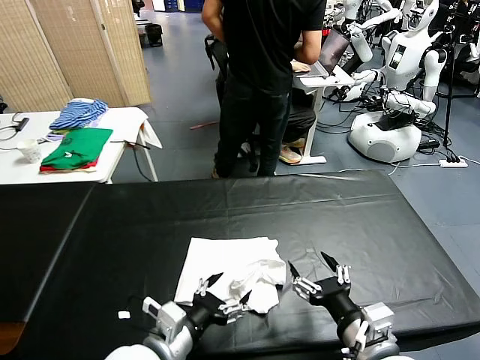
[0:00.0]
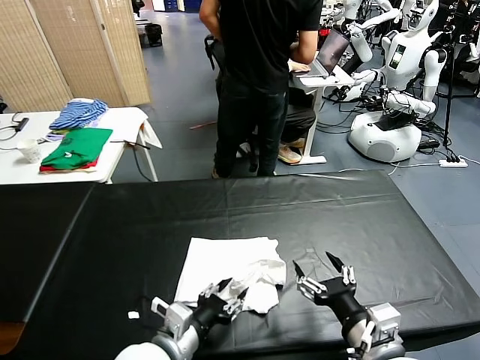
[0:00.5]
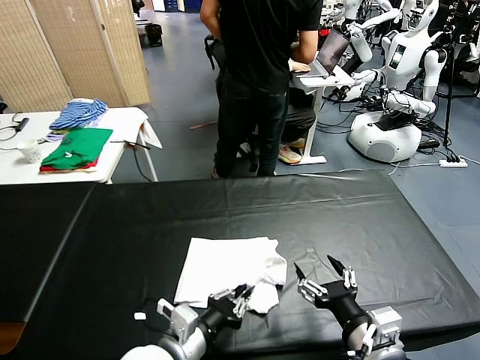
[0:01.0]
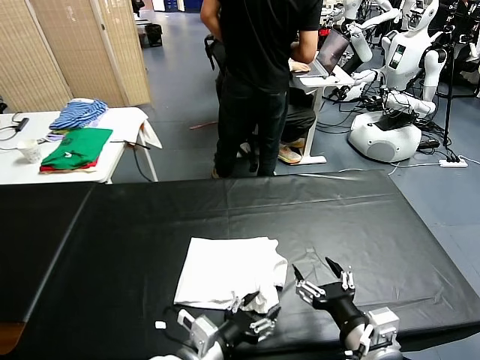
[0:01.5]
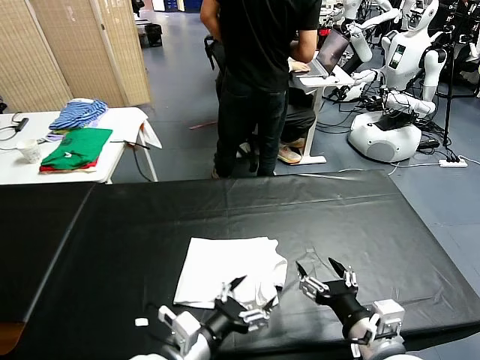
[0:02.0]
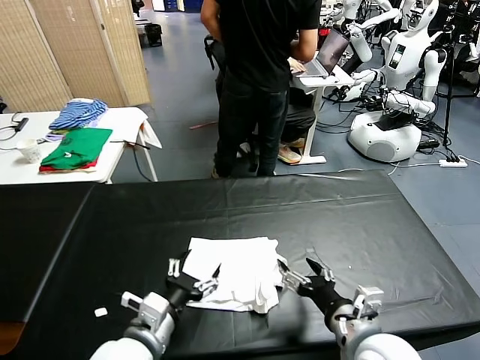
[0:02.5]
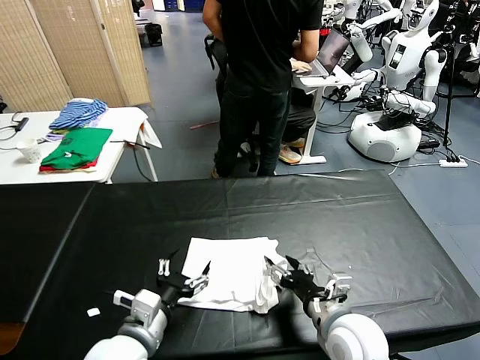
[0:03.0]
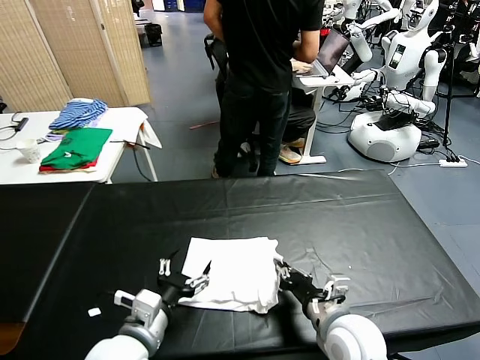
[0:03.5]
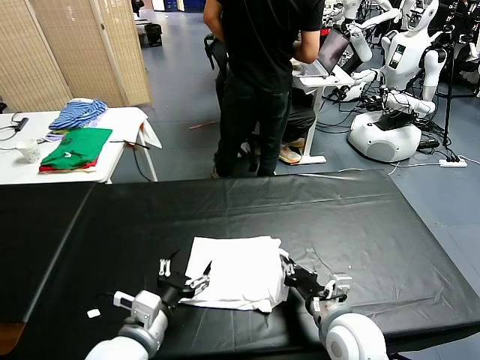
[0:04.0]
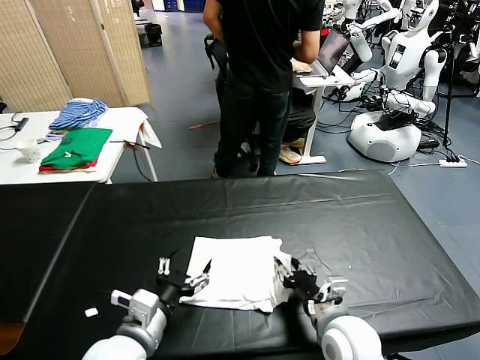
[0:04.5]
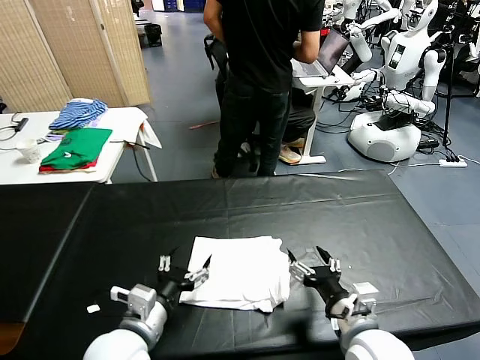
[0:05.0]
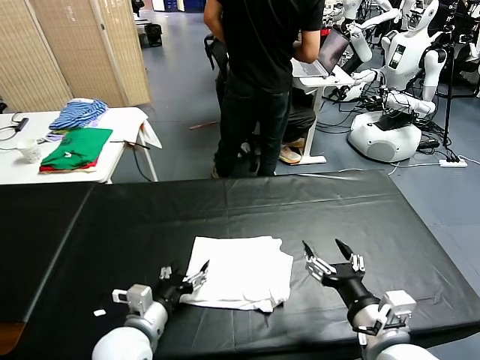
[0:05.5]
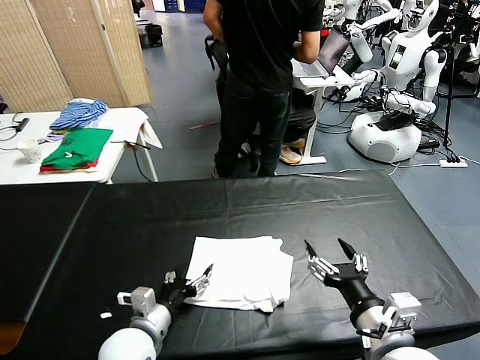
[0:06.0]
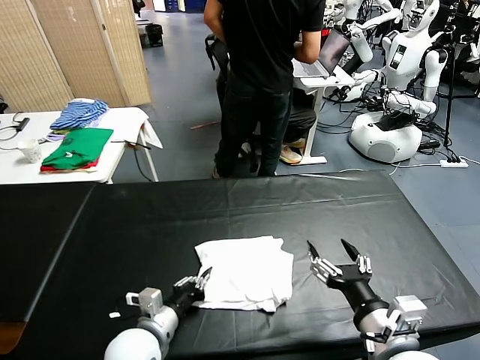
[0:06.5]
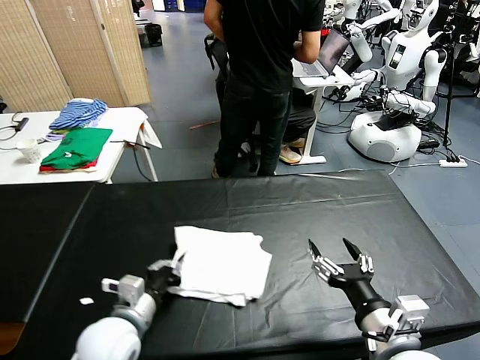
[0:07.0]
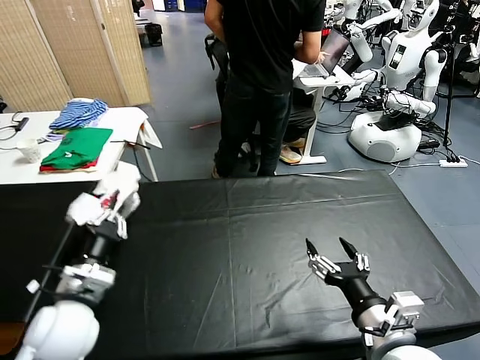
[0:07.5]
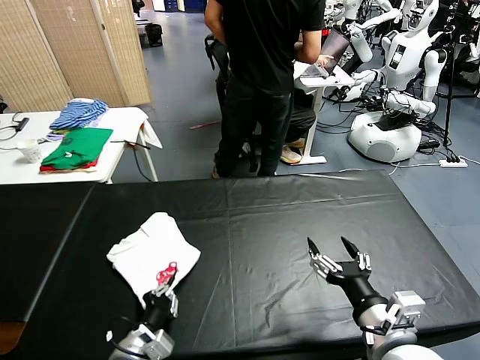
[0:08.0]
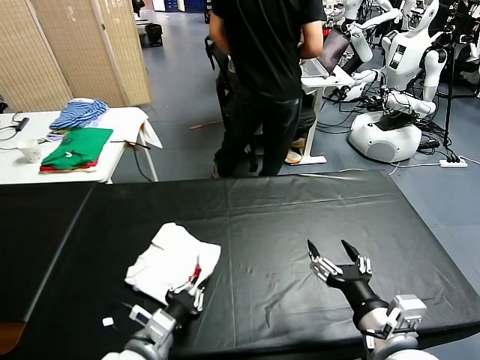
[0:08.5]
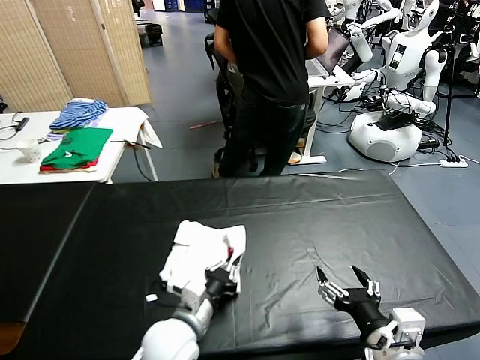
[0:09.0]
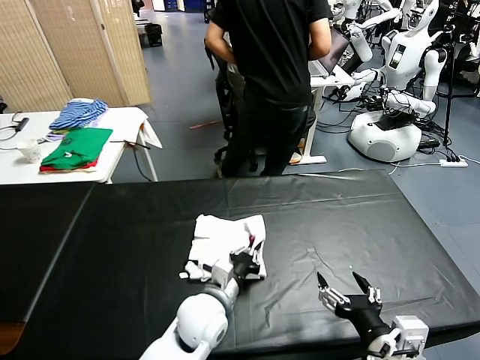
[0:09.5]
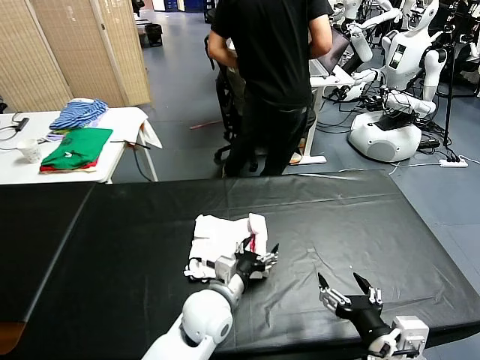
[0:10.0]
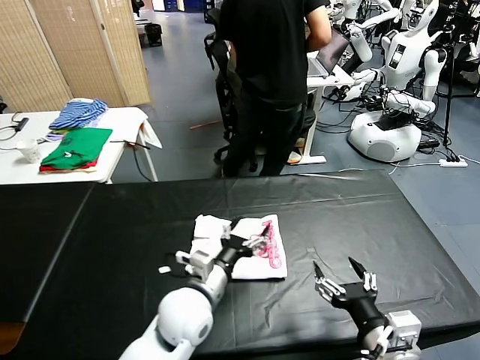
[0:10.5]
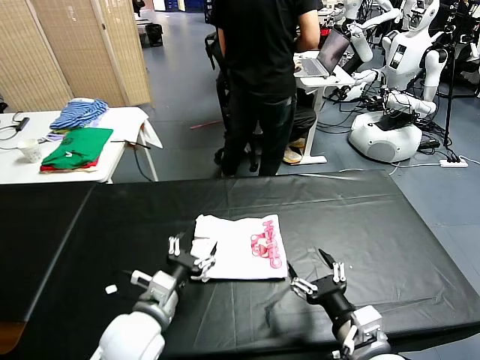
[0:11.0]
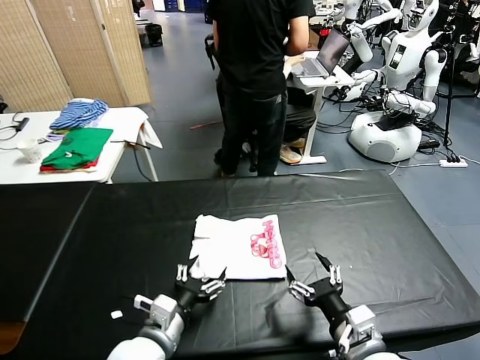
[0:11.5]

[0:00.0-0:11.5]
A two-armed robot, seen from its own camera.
Task of the whole recording: fold and organize the clothes.
Step, 0:00.0 to 0:10.0: Flip the folded clothes over with left gripper.
0:00.0 to 0:02.0: The left gripper closes, then reopens.
0:02.0 to 0:04.0: The left gripper heads to the left, covering approximately 5 cm; the right gripper shifts roughly 10 cm downward and forward, and closes its fingers.
0:04.0 to 0:06.0: The right gripper travels upward and backward by approximately 10 cm, and opens up; the left gripper moves downward, about 10 cm.
0:06.0 to 0:07.5: The left gripper shifts about 15 cm upward and to the left, and closes up.
0:07.5 to 0:09.5: The left gripper is displaced to the right and downward by approximately 25 cm.
0:09.5 to 0:11.5: The left gripper is displaced to the left and backward by some 15 cm, and opens its fingers; the right gripper travels downward by about 5 cm.

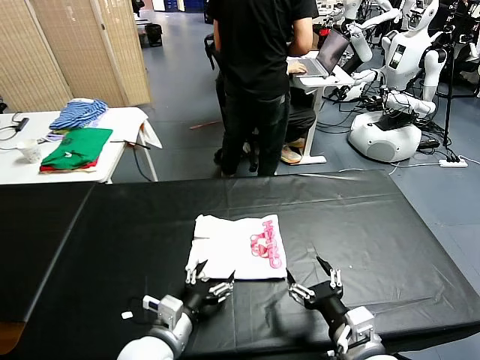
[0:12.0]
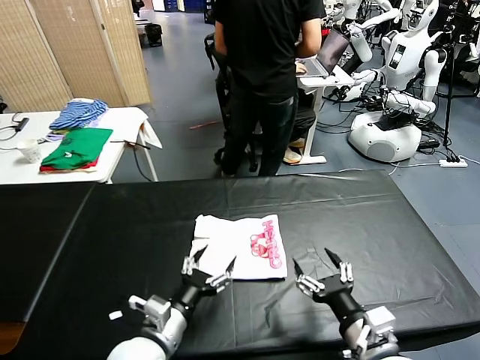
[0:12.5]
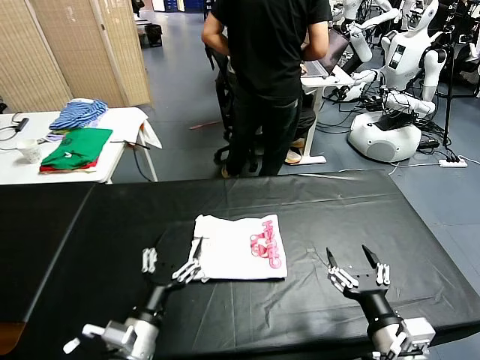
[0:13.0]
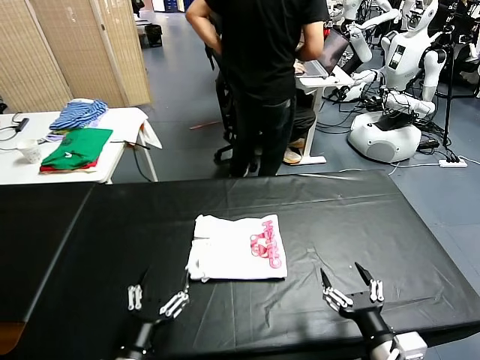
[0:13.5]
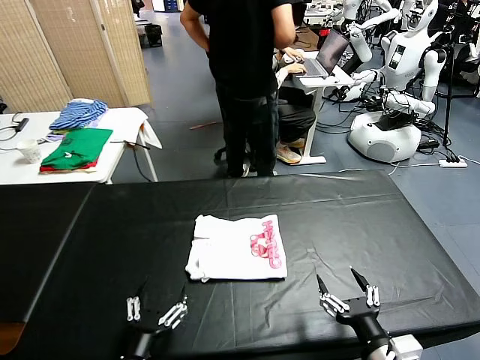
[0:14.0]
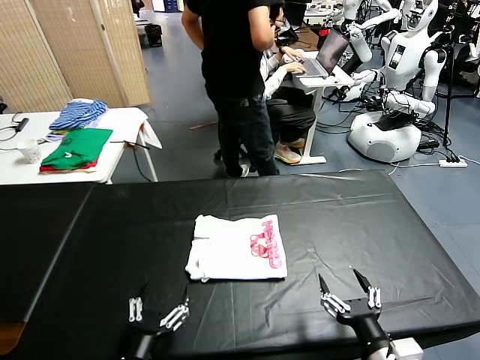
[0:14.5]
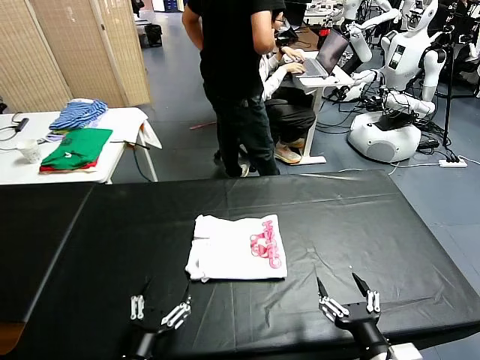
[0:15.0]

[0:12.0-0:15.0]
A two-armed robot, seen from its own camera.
Task of the whole recording: fold and organize the clothes.
0:12.0 to 0:13.5: The left gripper travels backward by approximately 10 cm; the right gripper changes place by about 5 cm.
0:13.5 to 0:15.0: There are only small adjustments of the grippers.

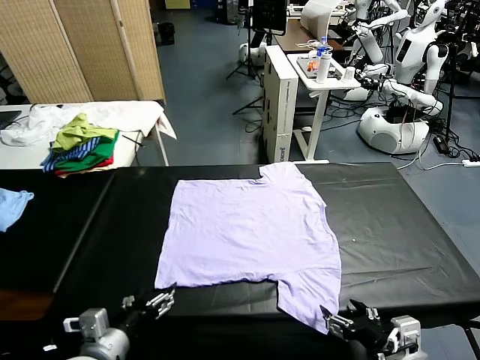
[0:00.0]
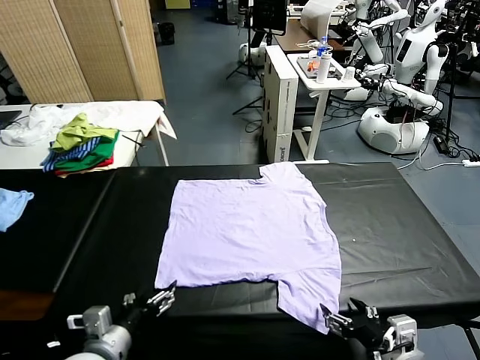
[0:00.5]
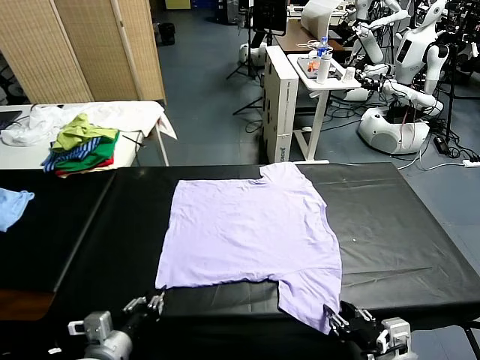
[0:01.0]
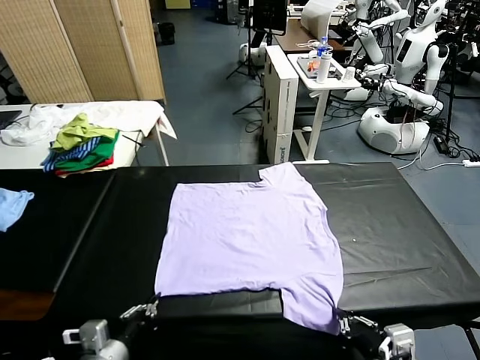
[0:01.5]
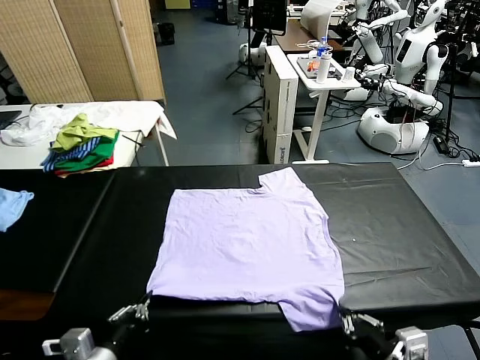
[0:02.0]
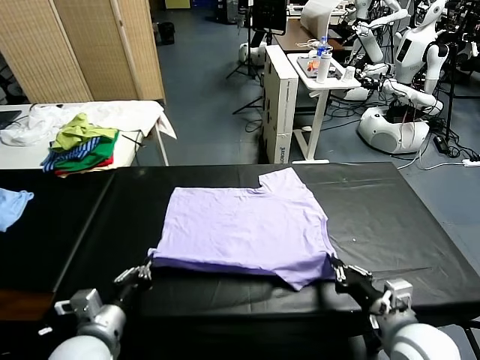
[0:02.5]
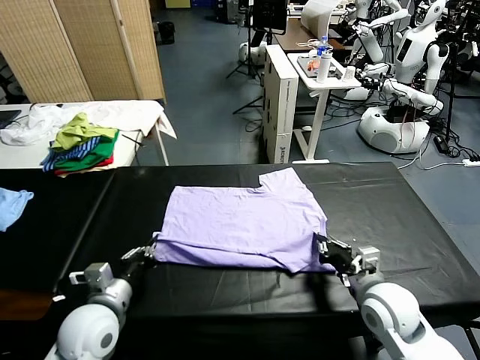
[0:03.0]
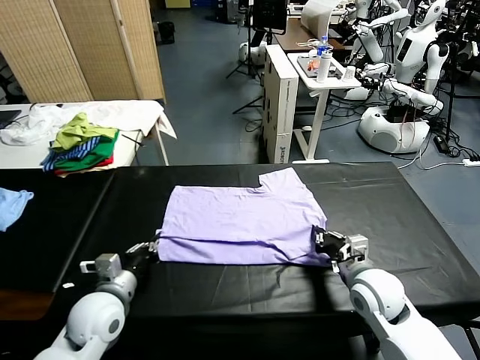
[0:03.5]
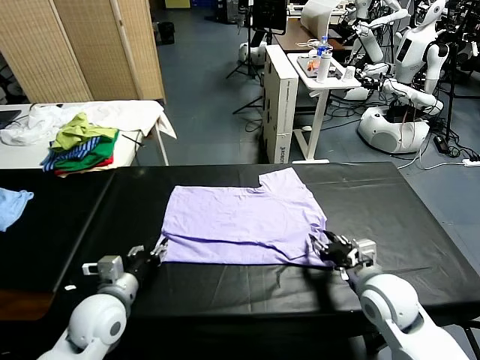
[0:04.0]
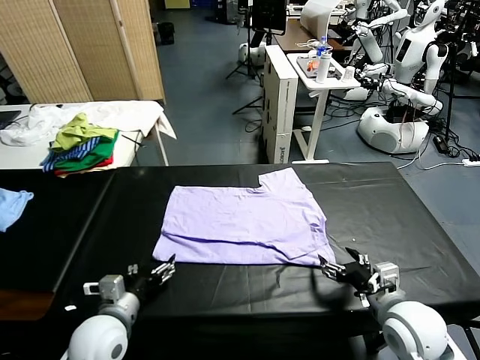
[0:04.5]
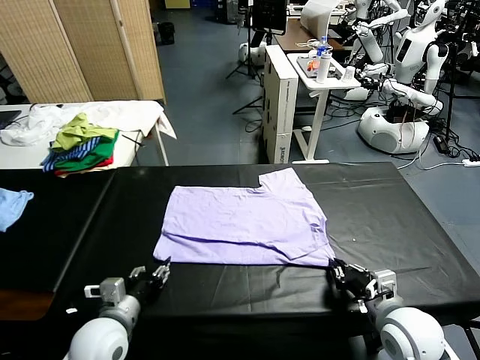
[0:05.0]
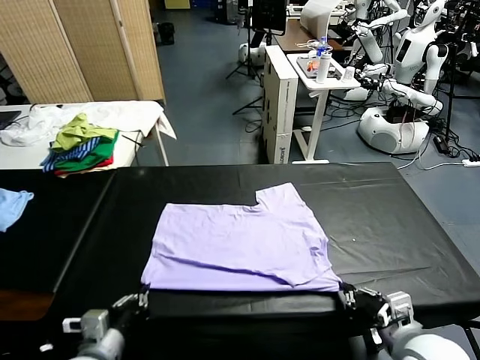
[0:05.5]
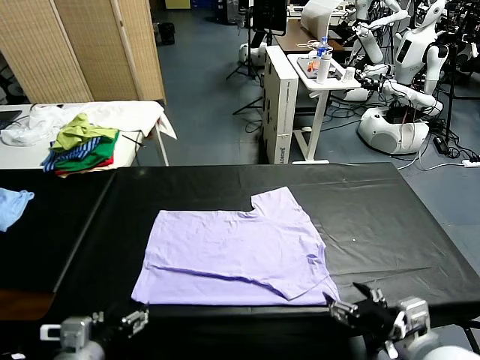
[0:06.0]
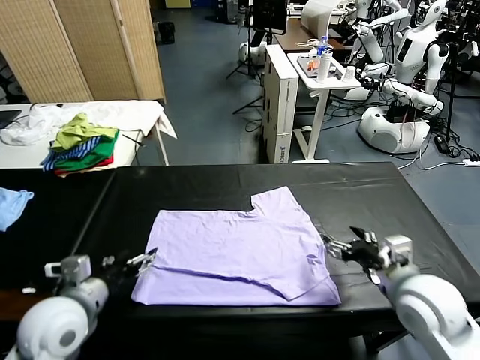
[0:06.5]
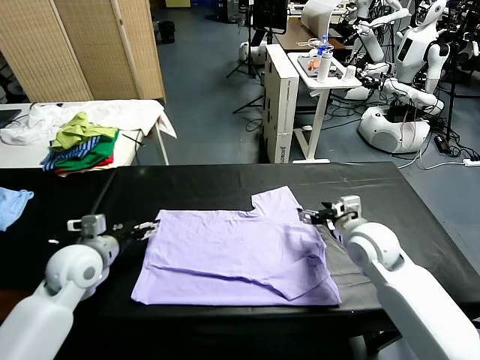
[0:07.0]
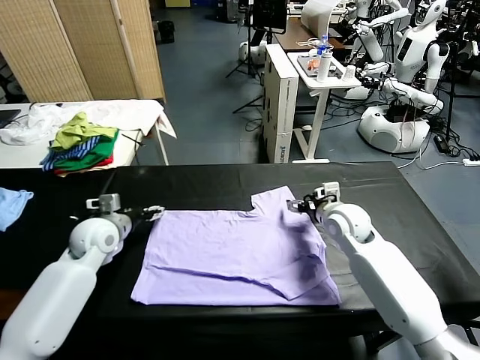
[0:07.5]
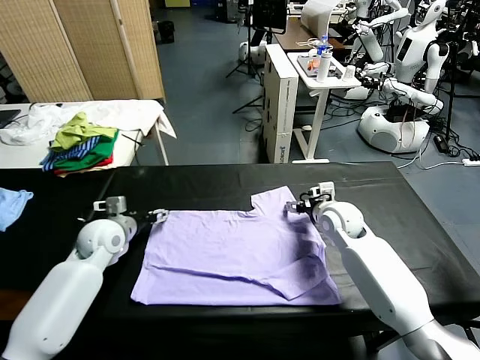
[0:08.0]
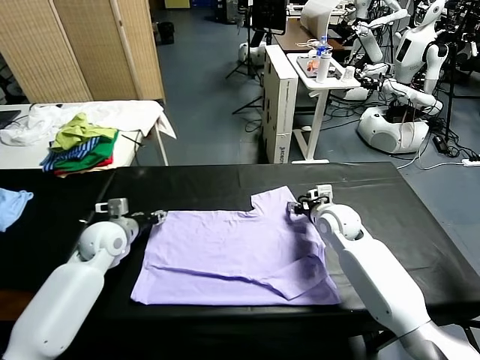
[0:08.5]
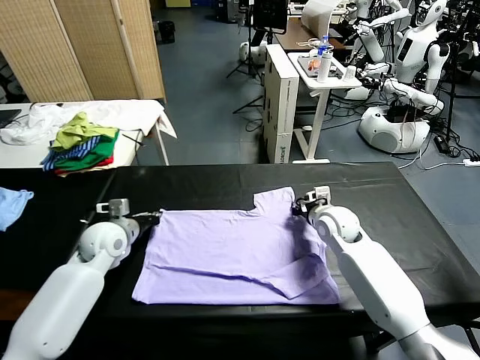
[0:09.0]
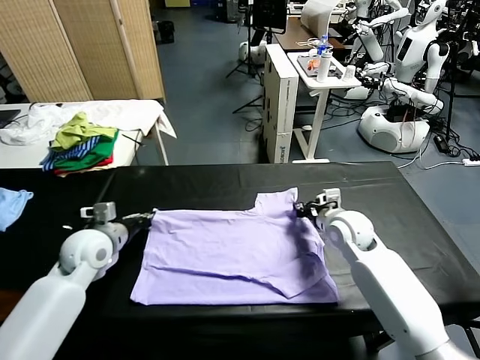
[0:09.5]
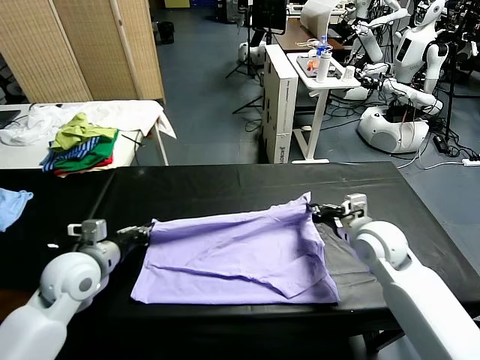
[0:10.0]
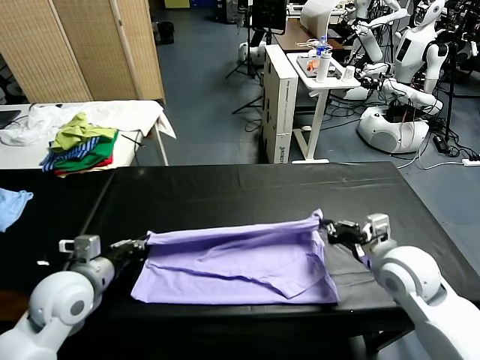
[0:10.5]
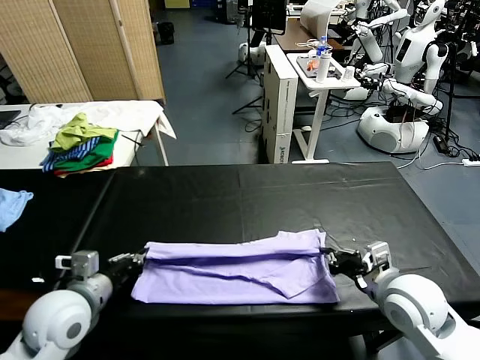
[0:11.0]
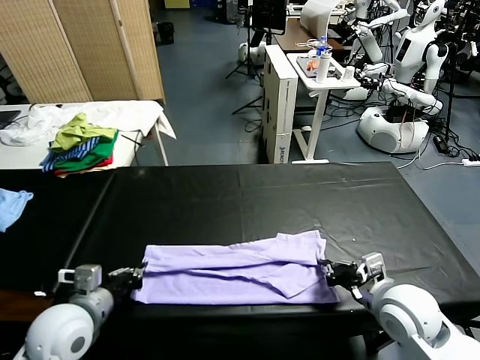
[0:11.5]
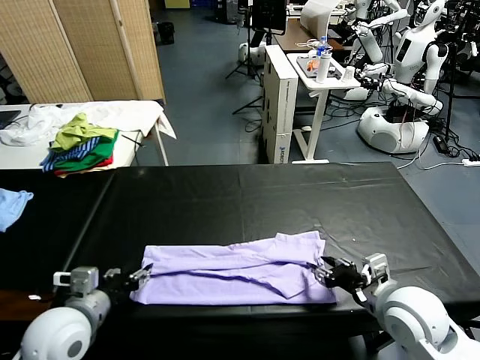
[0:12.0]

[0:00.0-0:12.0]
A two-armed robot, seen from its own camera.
Task of the whole recording: fold and organize the clothes.
Step, 0:00.0 to 0:01.0: use both grippers simultaneously to clamp the lower edge of the clothing fabric.
Step, 0:02.0 to 0:04.0: use both grippers to drag the lower edge of the fabric forward and fold it over the upper edge.
Step, 0:04.5 to 0:05.5: Drag the clothes downward with both gripper.
Step, 0:06.0 to 0:09.0: use both grippers simultaneously to clamp the upper edge of the clothing fabric.
Step, 0:09.5 to 0:12.0: use both grippers to drag the upper edge of the fabric backward and fold it over the lower edge.
0:02.0 to 0:04.0: The two grippers go some 10 cm forward. The left gripper opens. Meanwhile the right gripper opens up.
0:04.0 to 0:06.0: The left gripper goes about 10 cm backward, and closes up. Meanwhile the right gripper shifts approximately 10 cm backward and upward, and closes.
0:06.0 to 0:08.0: The grippers both shift forward by some 30 cm. The left gripper opens its fingers; the right gripper opens.
0:08.0 to 0:10.0: The left gripper travels backward by some 10 cm, and closes its fingers. Meanwhile the right gripper travels backward and upward by roughly 10 cm, and closes up.
0:10.0 to 0:12.0: Both grippers travel together backward, roughly 10 cm.
